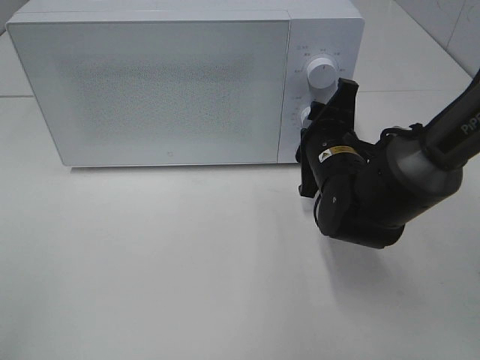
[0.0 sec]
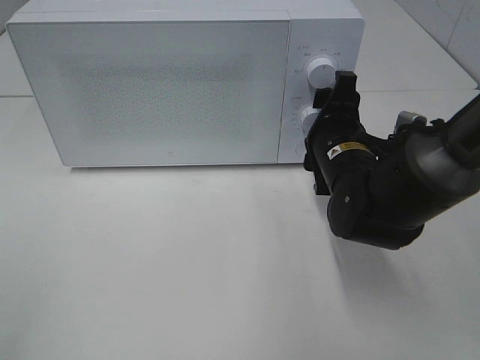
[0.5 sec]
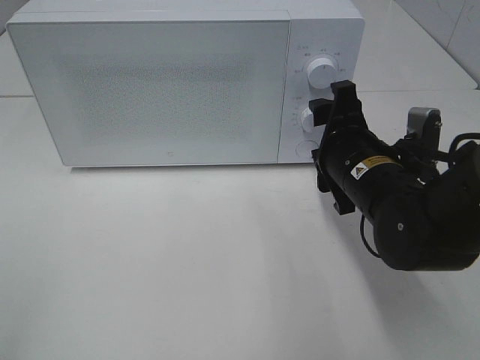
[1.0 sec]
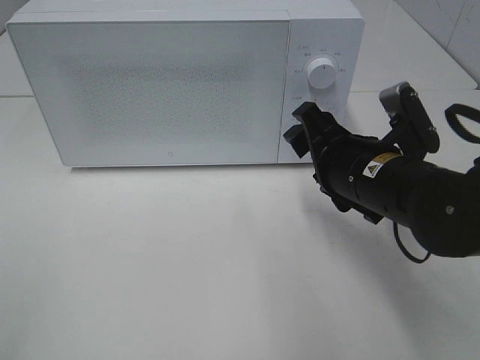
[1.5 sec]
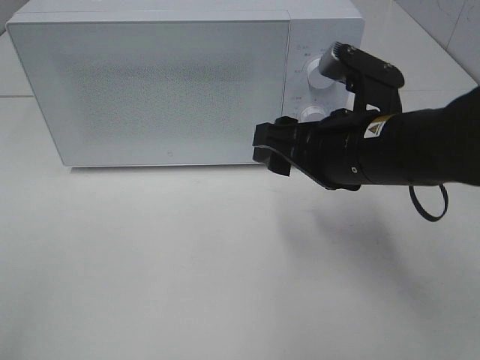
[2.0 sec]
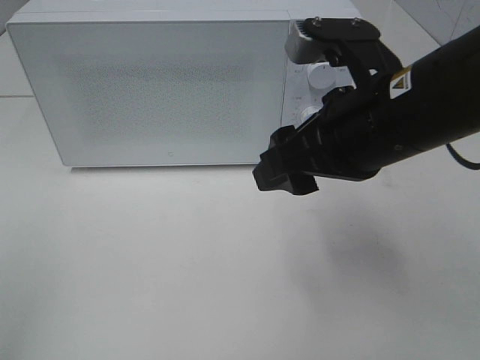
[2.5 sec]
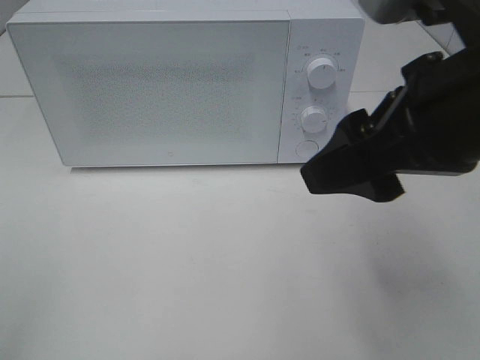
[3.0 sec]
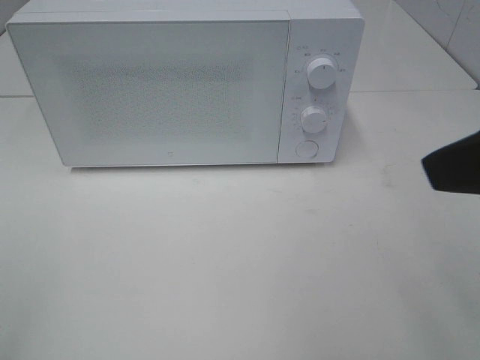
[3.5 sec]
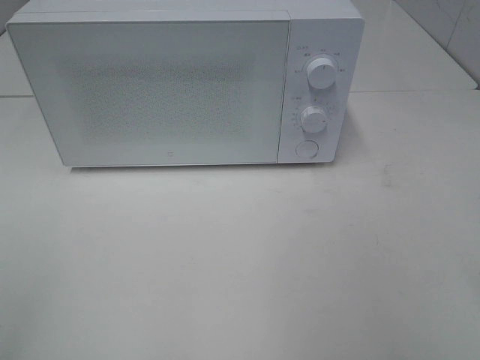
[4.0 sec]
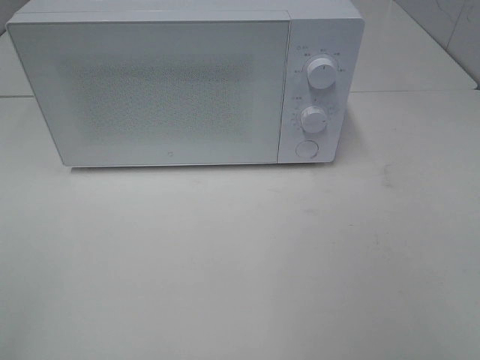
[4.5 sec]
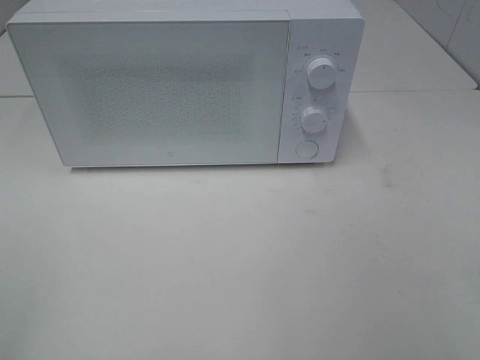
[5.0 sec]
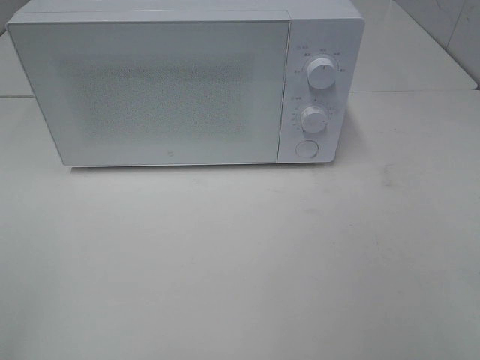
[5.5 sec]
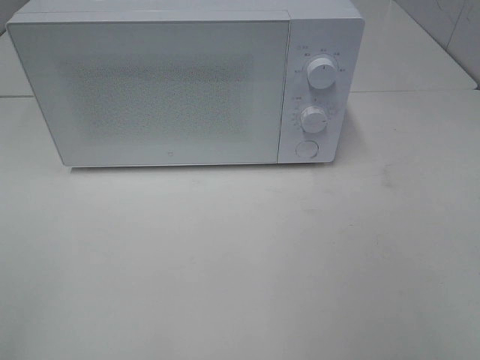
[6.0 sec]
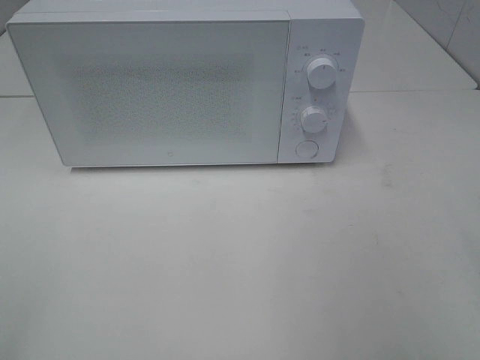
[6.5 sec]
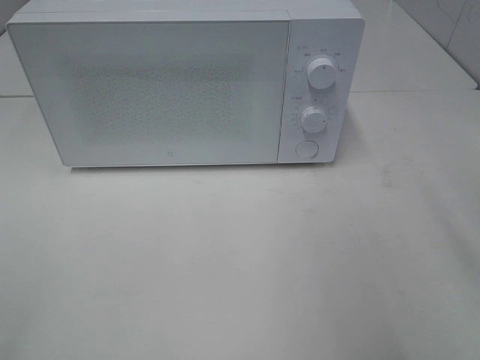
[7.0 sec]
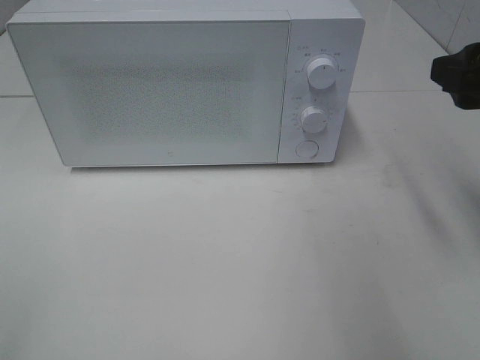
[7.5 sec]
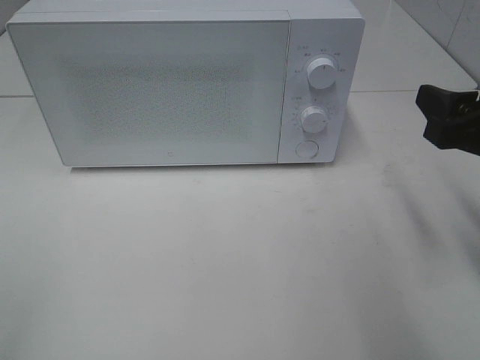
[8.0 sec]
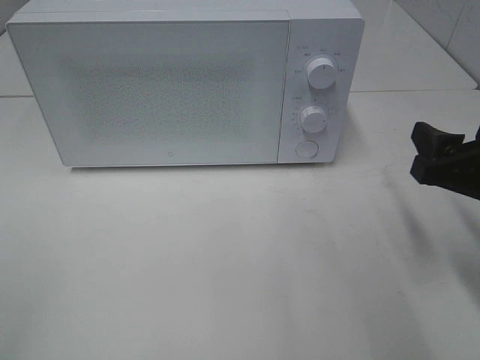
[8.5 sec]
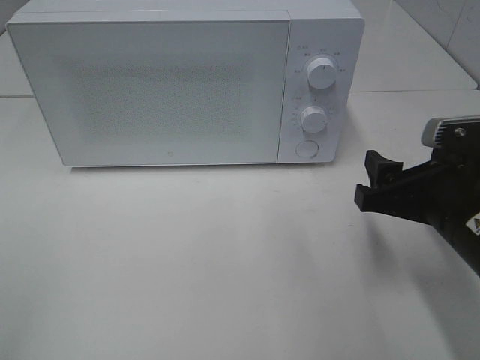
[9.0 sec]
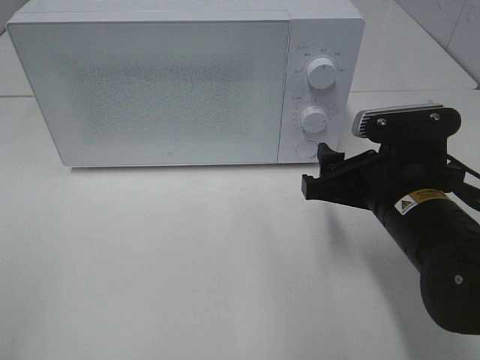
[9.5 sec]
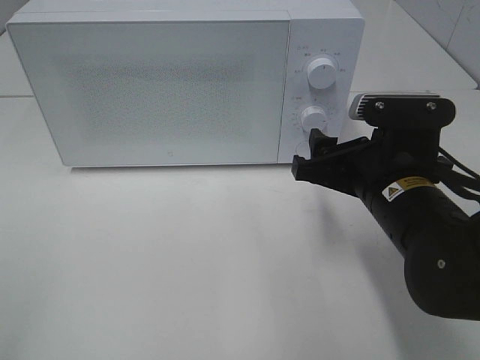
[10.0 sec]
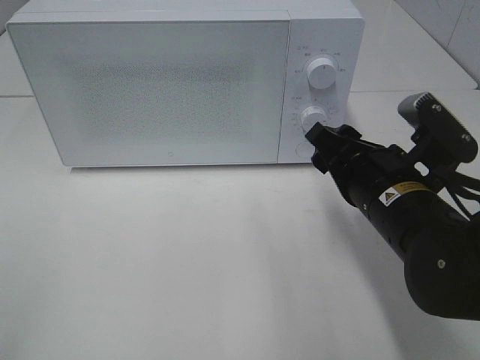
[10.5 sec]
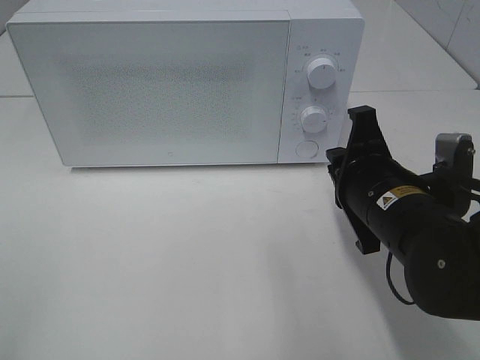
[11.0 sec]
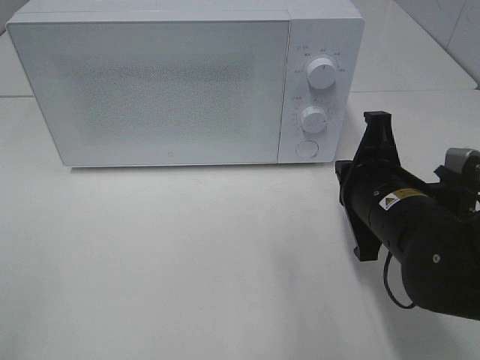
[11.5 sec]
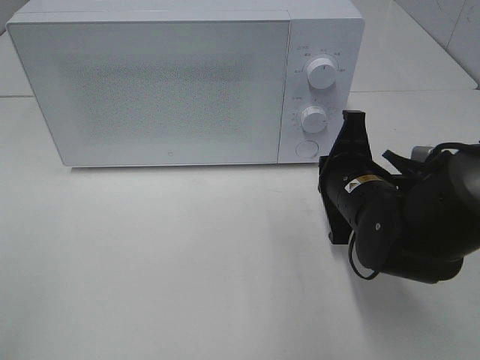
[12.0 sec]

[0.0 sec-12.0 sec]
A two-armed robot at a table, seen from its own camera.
Task of the whole recording: Heat the burger.
0.0 sec to 2.0 sec: The right gripper shifts about 10 cm upward and backward.
2.0 sec to 4.0 sec: The right gripper heads backward, upward and to the right, covering some 30 cm.
6.0 sec to 8.0 sec: The right gripper heads forward and downward, covering some 20 cm.
8.0 sec to 10.0 sec: The right gripper is displaced to the left and downward by some 15 cm.
10.0 sec to 12.0 sec: The right gripper ends up some 5 cm from where it was, and closes.

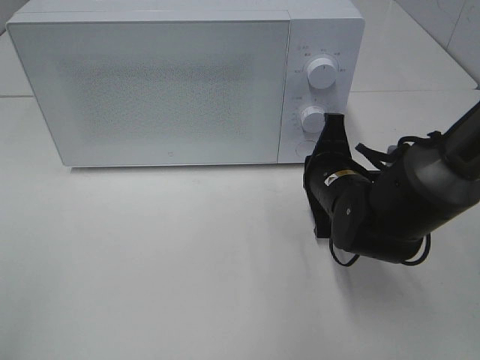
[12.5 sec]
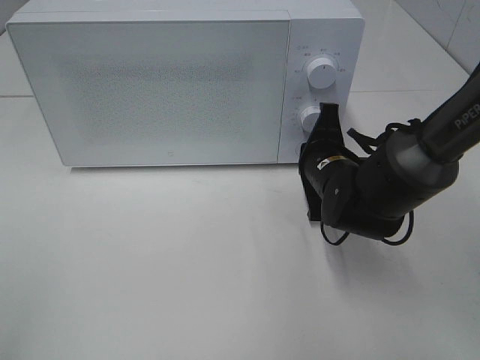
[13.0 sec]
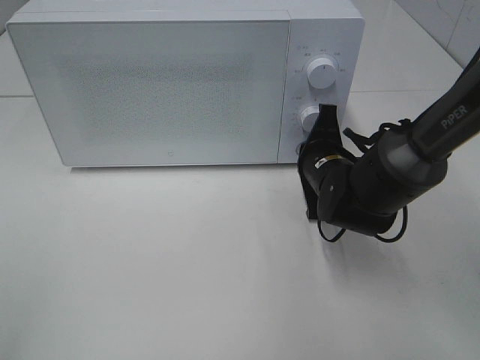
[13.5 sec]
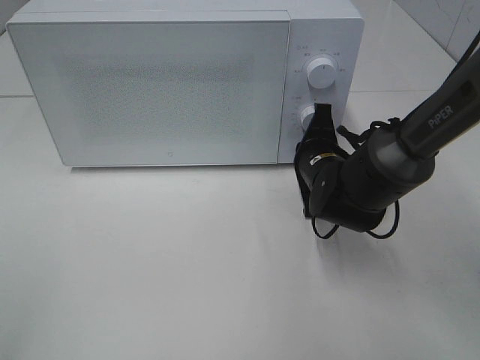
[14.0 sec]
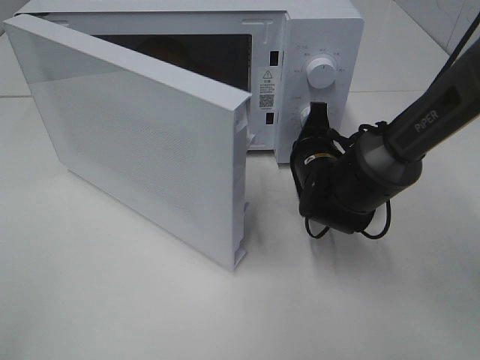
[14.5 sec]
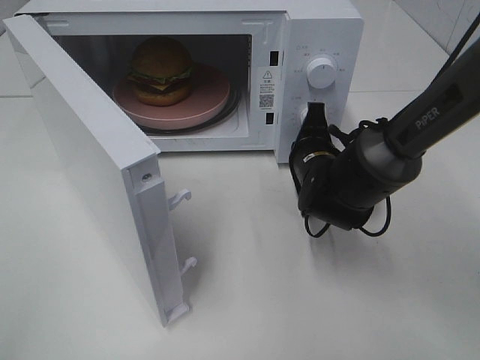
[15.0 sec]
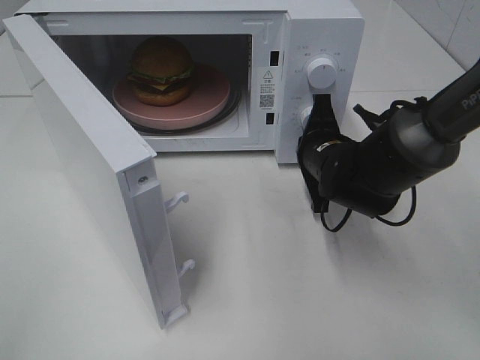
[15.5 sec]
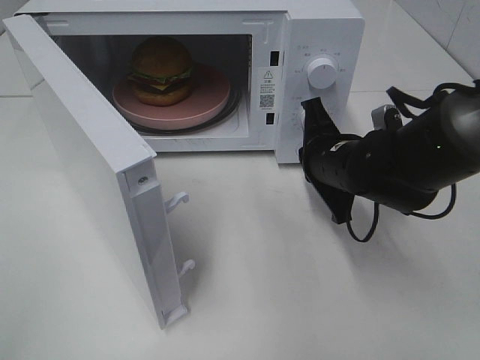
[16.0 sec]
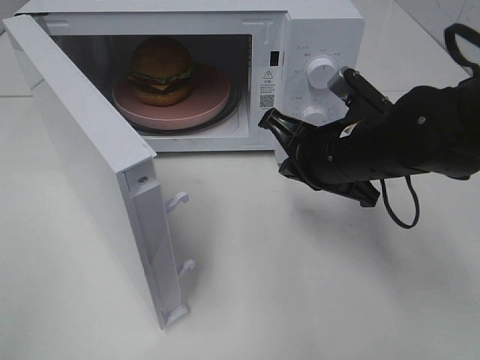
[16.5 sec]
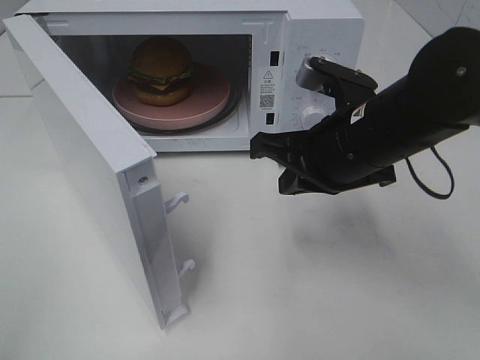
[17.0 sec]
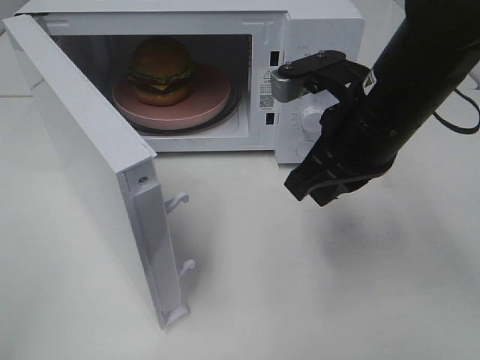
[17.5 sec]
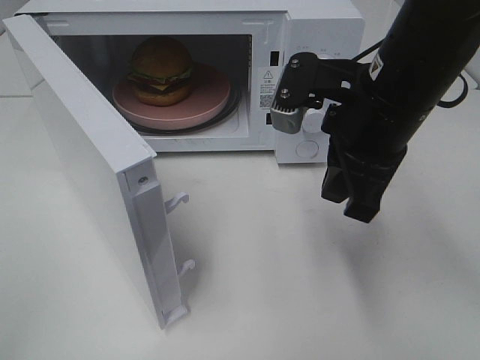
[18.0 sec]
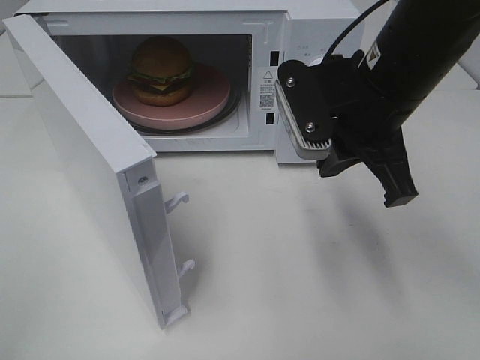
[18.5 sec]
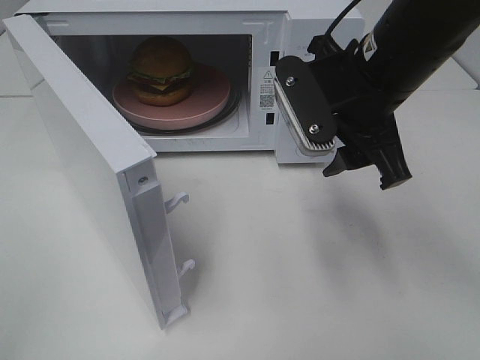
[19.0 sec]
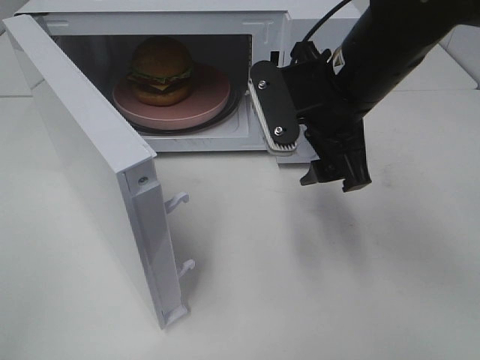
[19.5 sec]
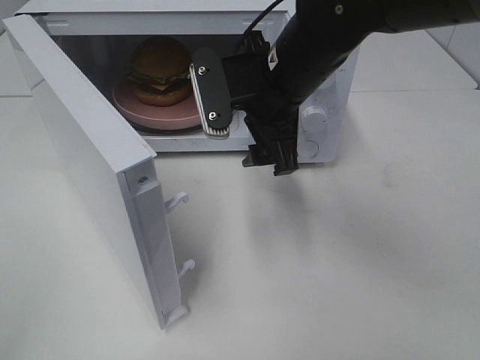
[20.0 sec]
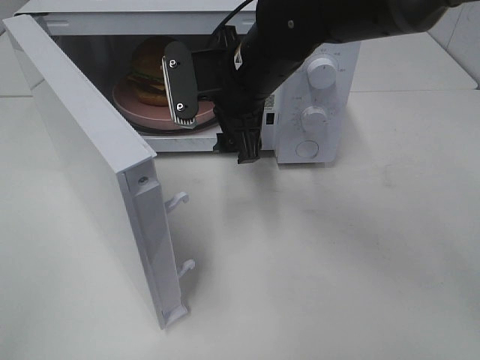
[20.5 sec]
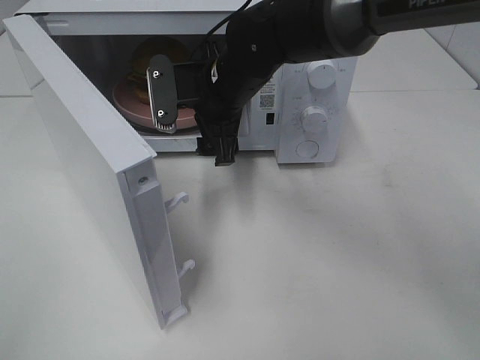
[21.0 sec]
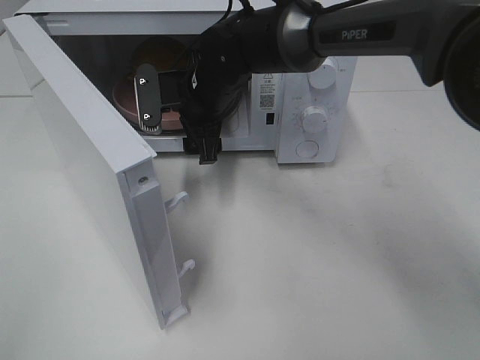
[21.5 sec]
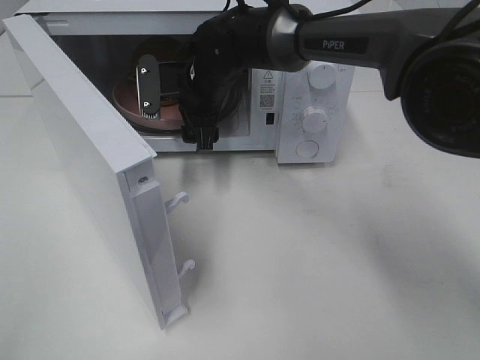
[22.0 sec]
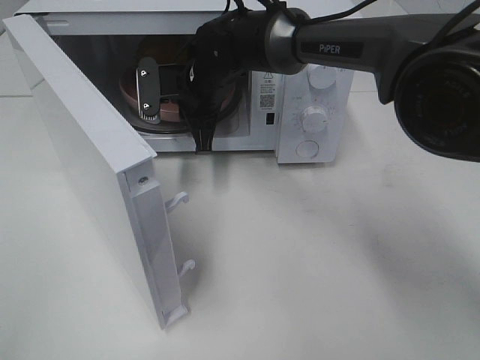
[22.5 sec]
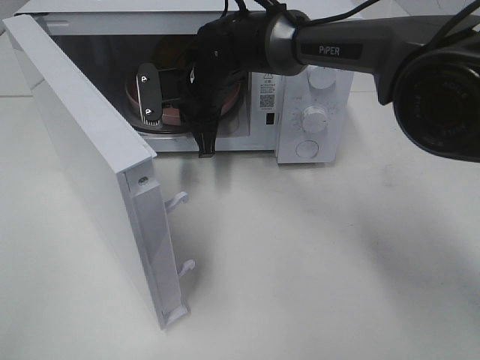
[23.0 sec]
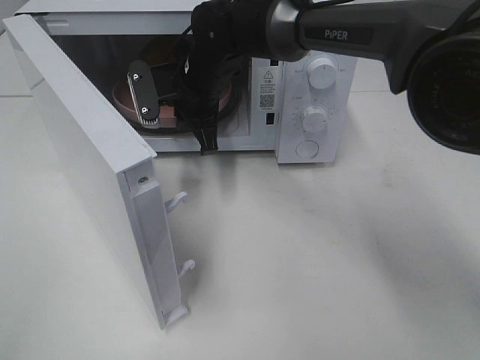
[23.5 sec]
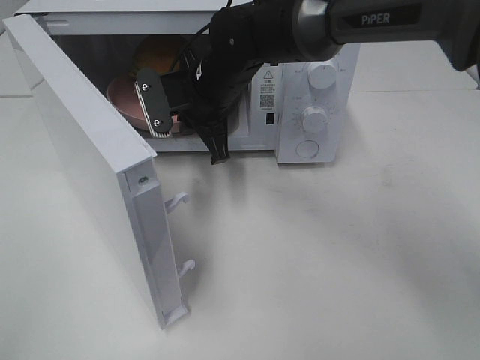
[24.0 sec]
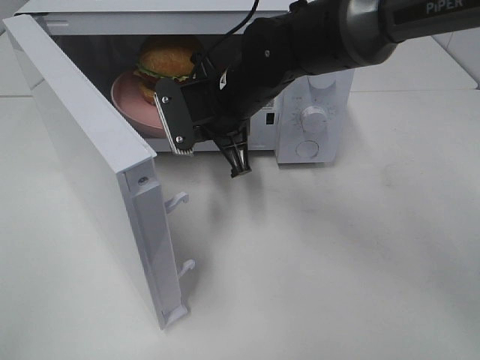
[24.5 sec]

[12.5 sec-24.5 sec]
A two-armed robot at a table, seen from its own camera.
Task of the whole recording: Heat the burger.
Step, 12.5 sec to 15.5 sec: Right hand: press the switch.
Step, 16.0 sec to 22.5 sec: Right hand: grab the plate with the hamburger.
12.5 sec to 14.5 sec: The right gripper is displaced forward by roughly 5 cm.
14.5 sec to 16.5 sec: The right gripper goes some 10 cm upward and backward.
16.5 sec to 18.5 sec: The right gripper is displaced upward by about 10 cm.
18.5 sec to 20.5 sec: The right gripper shifts about 15 cm to the left and forward, and opens its fingers.
20.5 sec to 22.5 sec: The right gripper travels forward, downward and to the left by some 10 cm, and closes its fingers.
22.5 sec to 24.5 sec: The right gripper shifts roughly 10 cm backward.

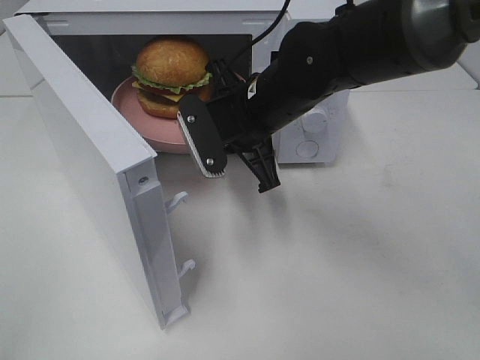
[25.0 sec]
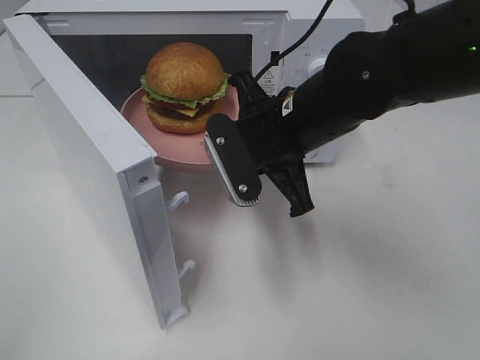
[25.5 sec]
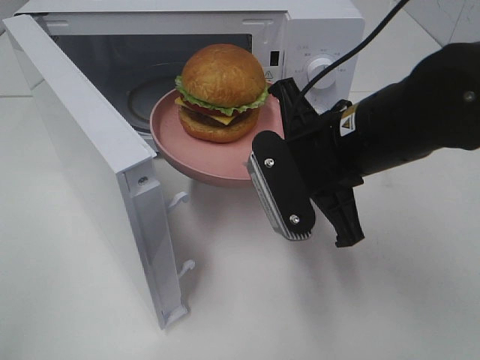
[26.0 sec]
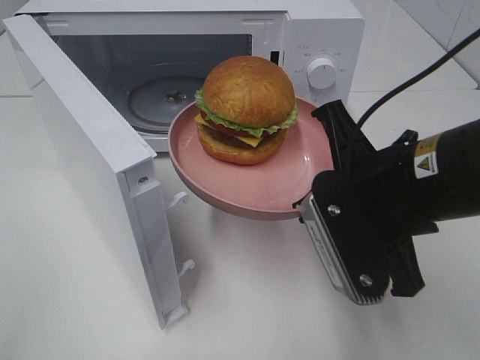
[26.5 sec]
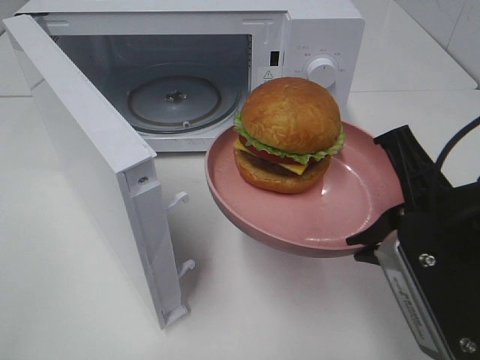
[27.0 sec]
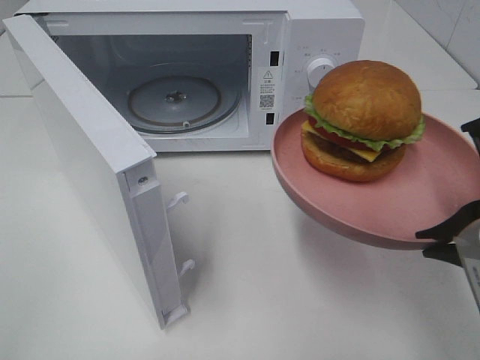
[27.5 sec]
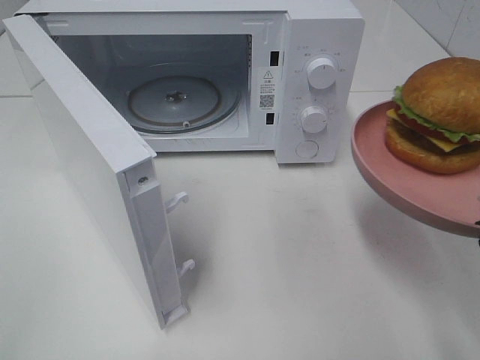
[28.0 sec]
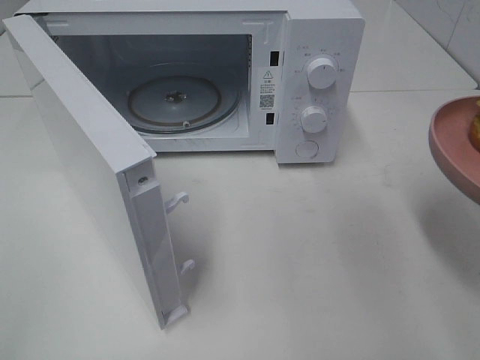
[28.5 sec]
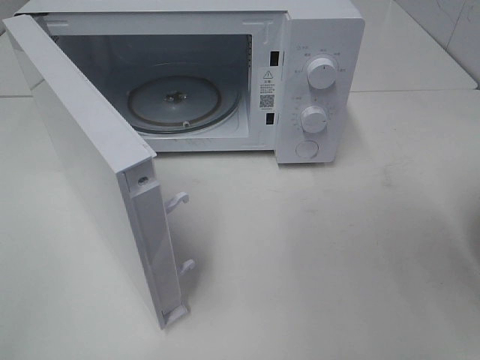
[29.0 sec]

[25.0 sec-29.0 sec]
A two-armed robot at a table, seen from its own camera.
Task of the whole recording: Heat the burger.
25.0 sec to 27.0 sec: The right gripper travels backward and to the right by approximately 25 cm.
27.0 sec to 29.0 sec: The right gripper moves to the right, approximately 10 cm.
